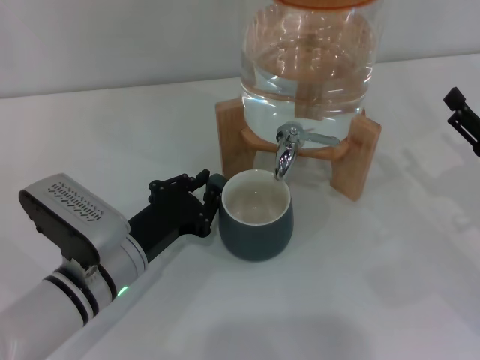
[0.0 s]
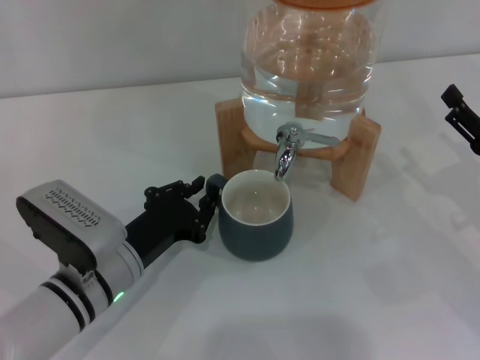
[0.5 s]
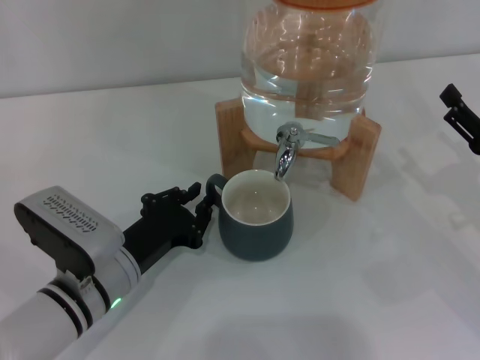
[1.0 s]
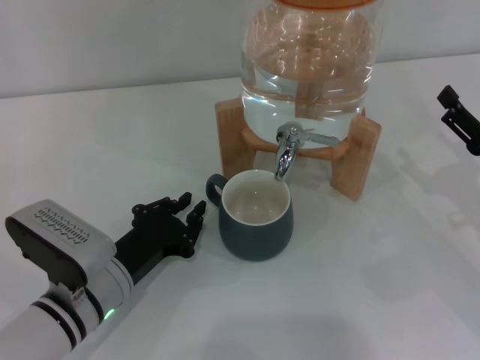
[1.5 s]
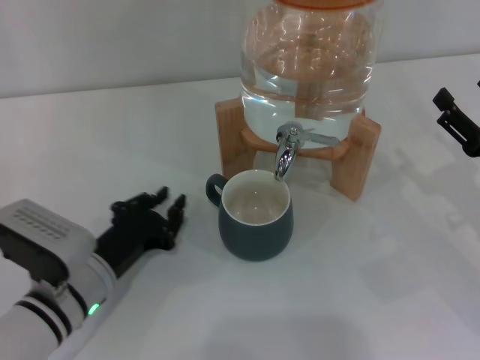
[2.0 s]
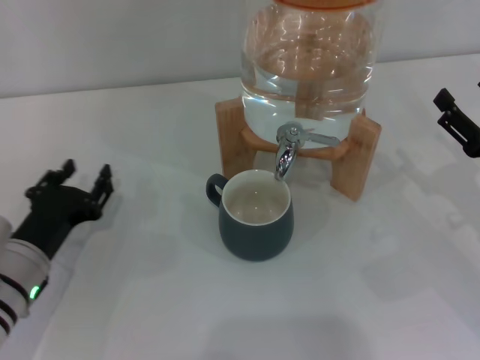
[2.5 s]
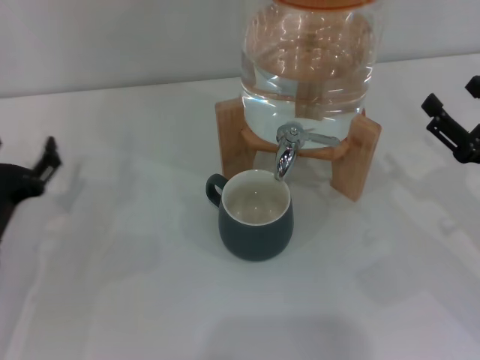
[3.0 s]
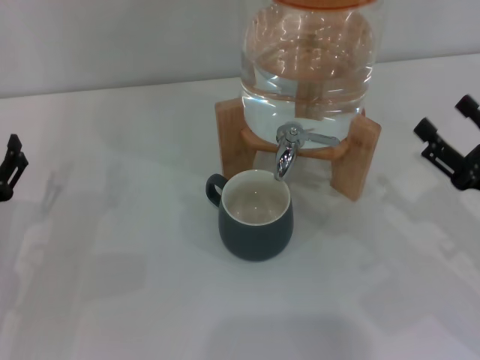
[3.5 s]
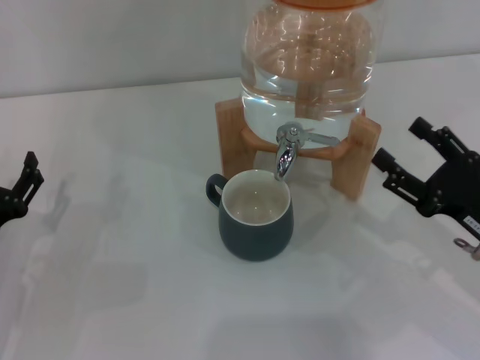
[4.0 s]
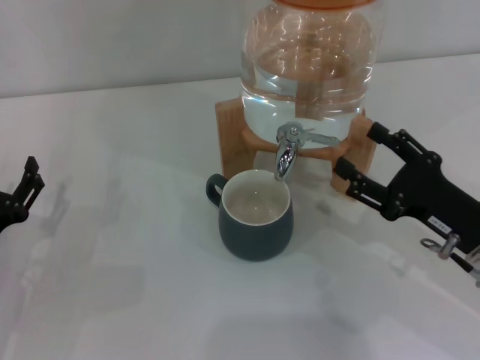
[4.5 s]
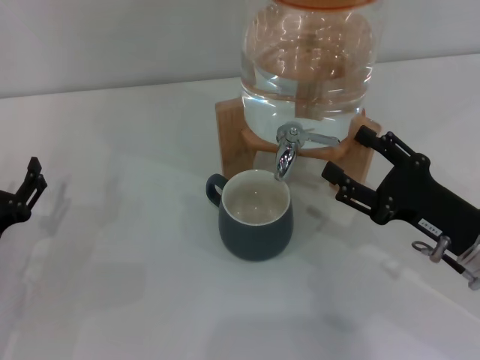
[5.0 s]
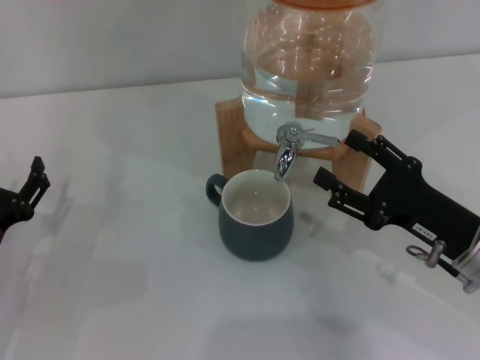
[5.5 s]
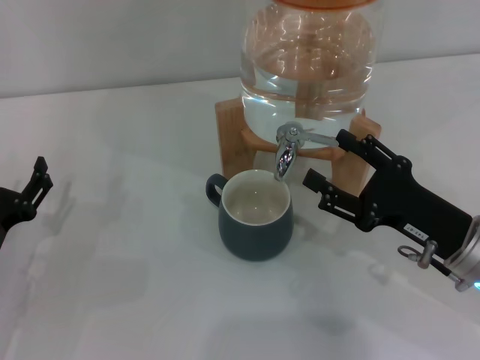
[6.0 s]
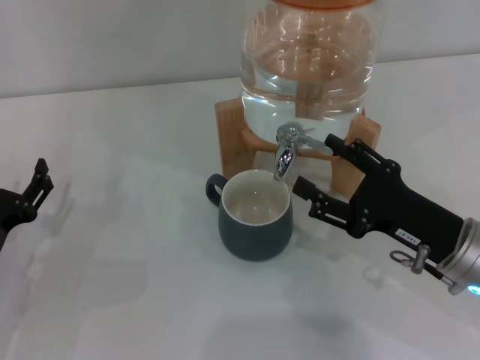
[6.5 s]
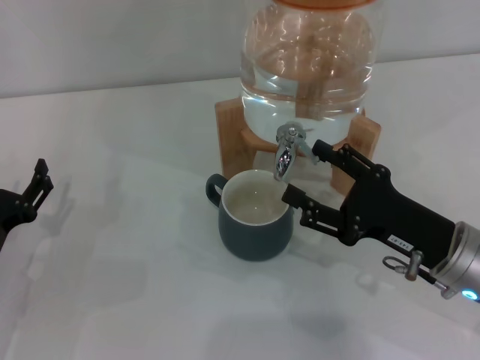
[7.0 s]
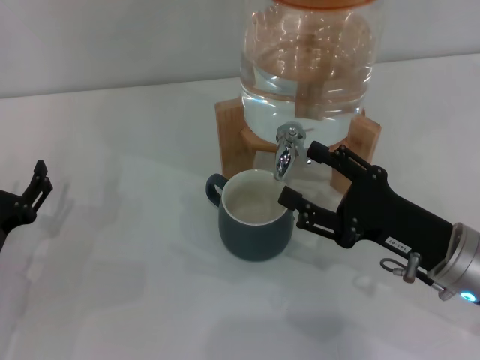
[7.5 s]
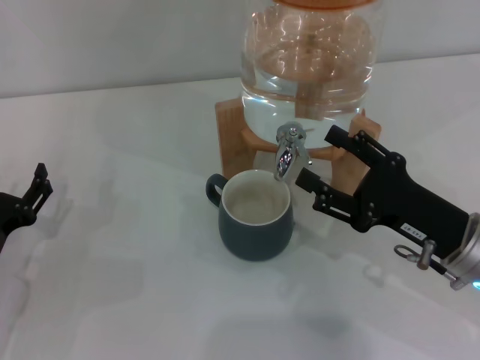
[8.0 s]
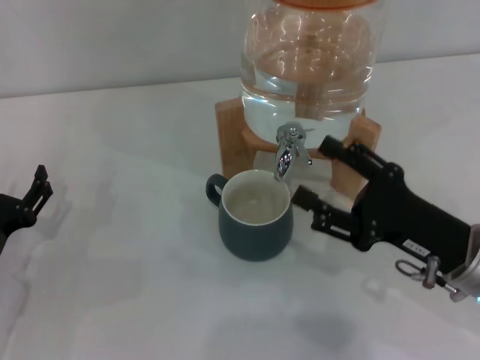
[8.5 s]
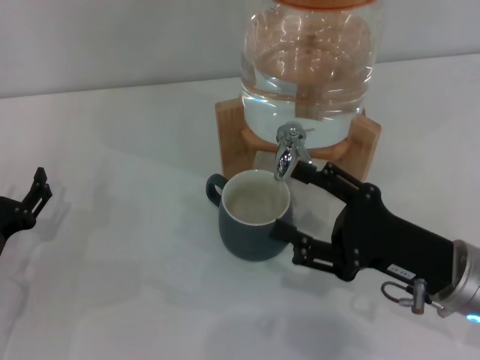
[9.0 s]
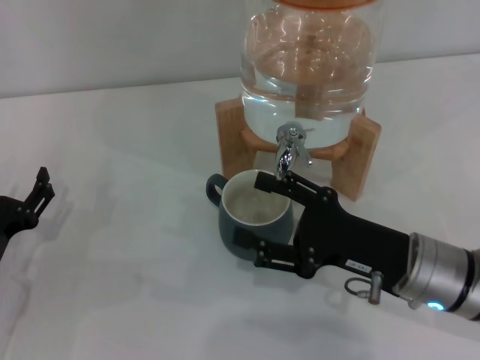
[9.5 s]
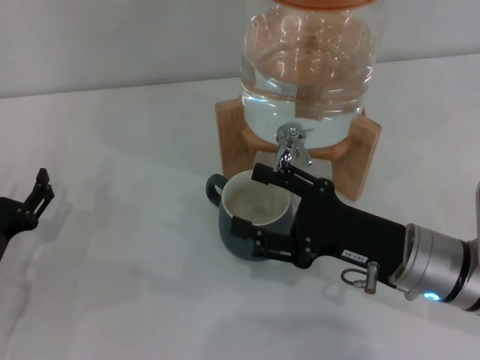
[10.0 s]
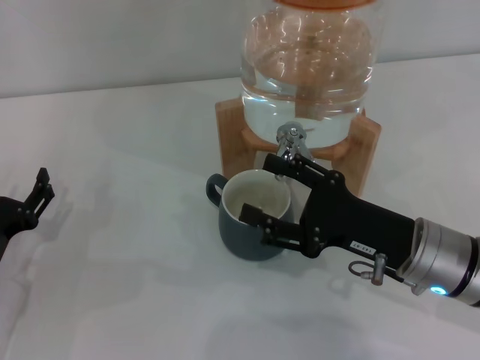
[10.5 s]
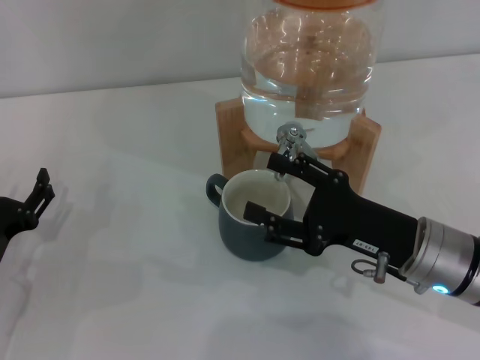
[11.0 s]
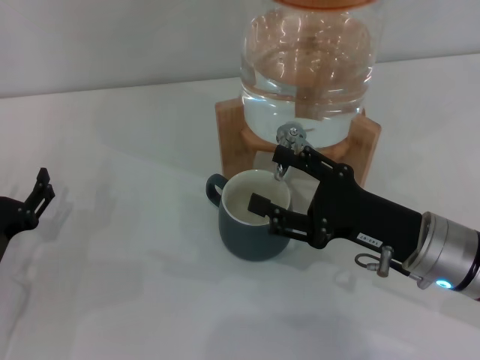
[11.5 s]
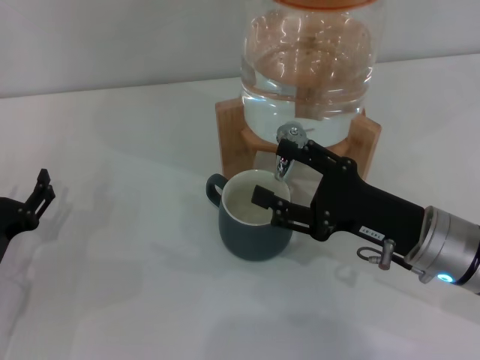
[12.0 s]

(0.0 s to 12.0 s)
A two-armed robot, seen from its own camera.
Task of the whole recording: the left gripper pick up the black cup and place it horizontally under the faucet, the right gripper turn on the faucet to fill the cup, and then turn off the faucet.
Step, 0.0 s - 2.0 s: Move the cup beneath the water dispenser nozzle with the left gripper.
Step, 2.5 s - 10.0 s: Open the dispenser valve and fill the cup with water with the right gripper.
0.0 s - 2.0 s: The grippers move only a little.
2.0 s - 4.0 s: The left gripper is displaced to the left by some 10 cm, and opens up.
4.0 s - 6.0 s: There are only small adjustments of the grippers.
6.0 s - 12.0 s: The grippers move only a little.

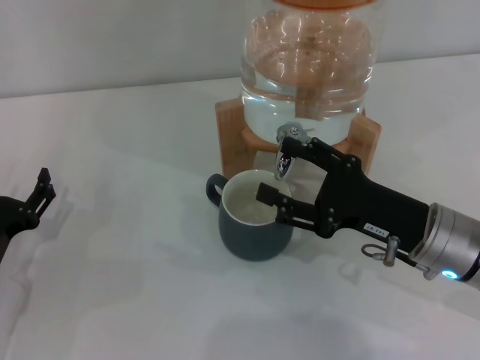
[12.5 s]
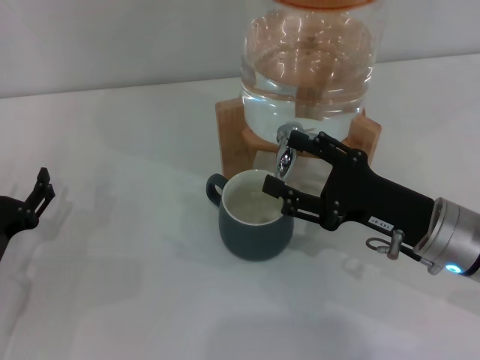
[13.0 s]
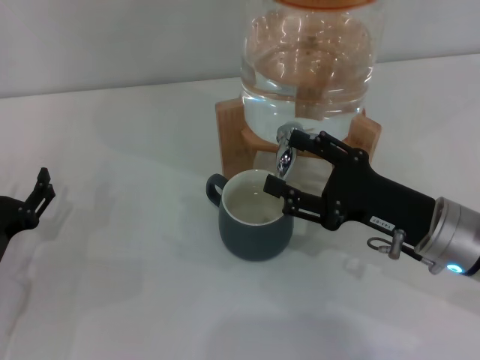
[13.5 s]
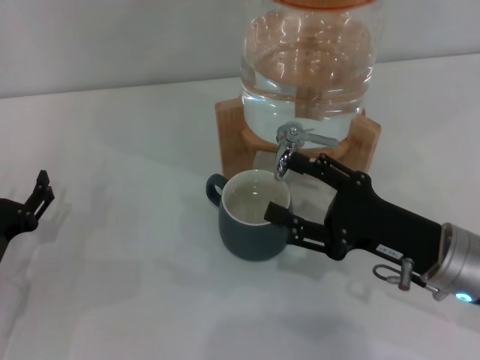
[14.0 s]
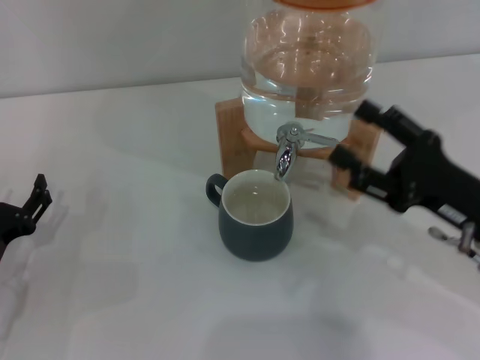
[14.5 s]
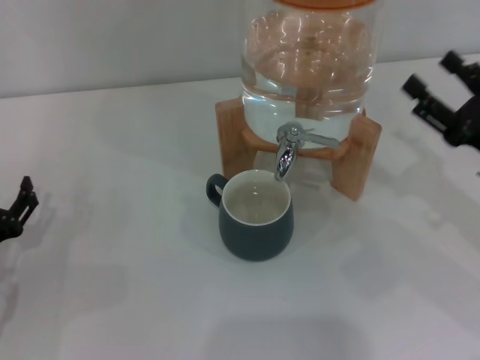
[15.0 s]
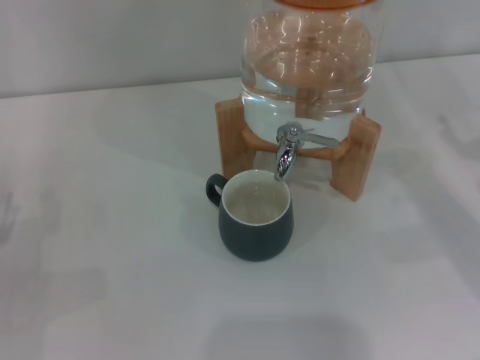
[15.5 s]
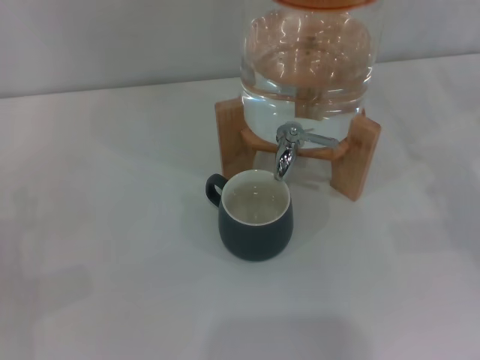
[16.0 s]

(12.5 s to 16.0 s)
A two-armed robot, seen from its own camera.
Task of the whole recording: the left gripper pick up the black cup and place it horizontally under the faucet, the right gripper turn on the faucet to fill the cup, and then turn off the faucet.
Step, 12.5 s - 14.5 s: Close the dispenser valve with the right gripper.
12.5 s - 14.5 s: The right gripper changes place by some 5 cm.
14.5 s - 16.0 s: The right gripper travels to the right by approximately 15 cm.

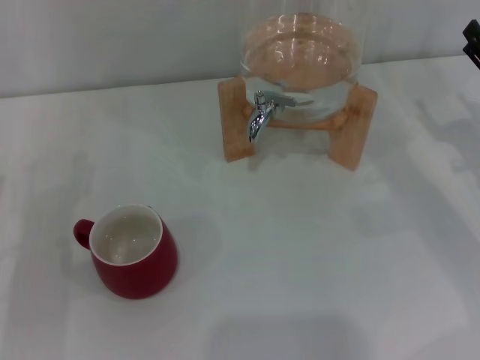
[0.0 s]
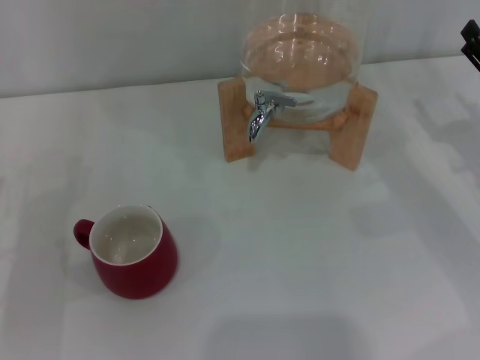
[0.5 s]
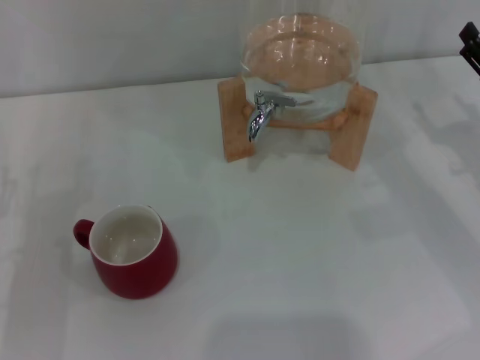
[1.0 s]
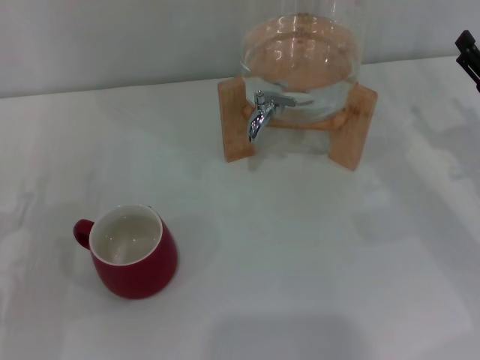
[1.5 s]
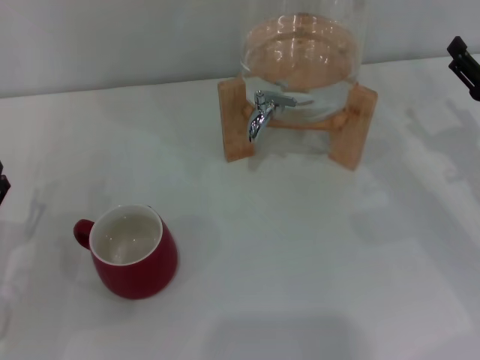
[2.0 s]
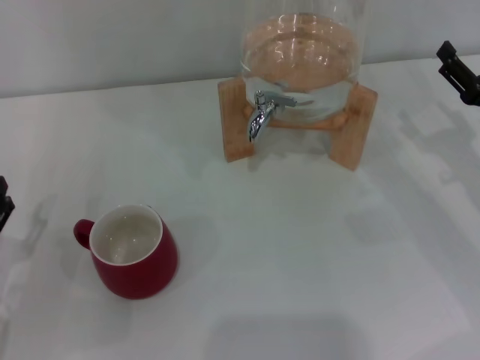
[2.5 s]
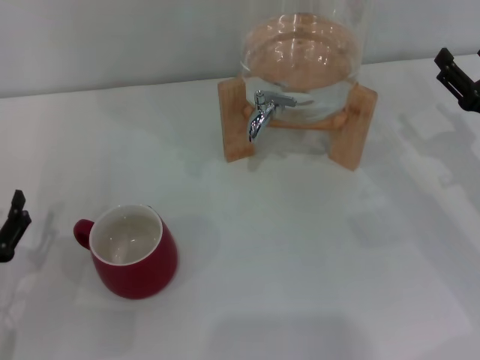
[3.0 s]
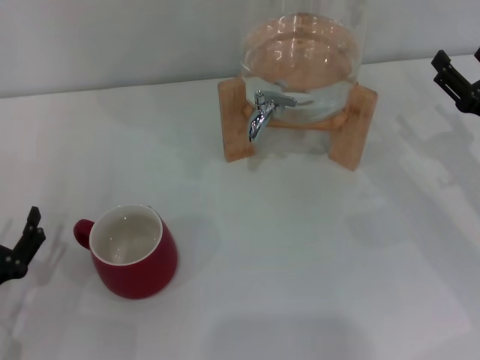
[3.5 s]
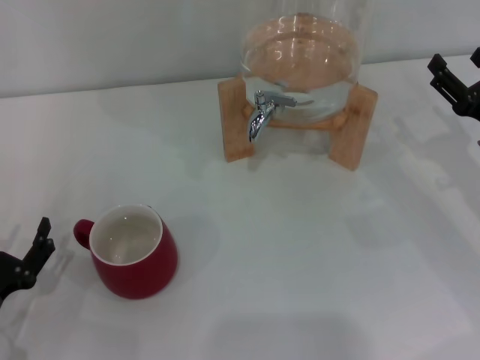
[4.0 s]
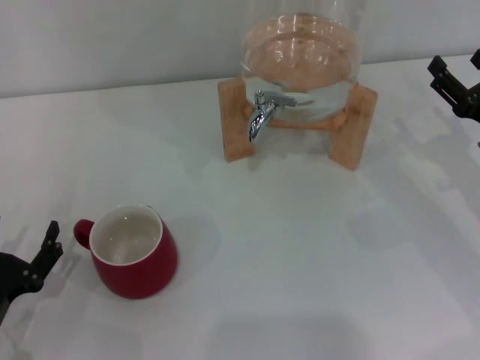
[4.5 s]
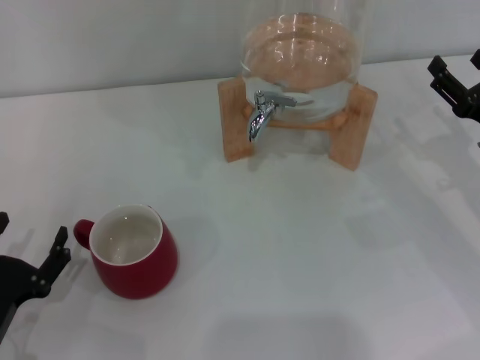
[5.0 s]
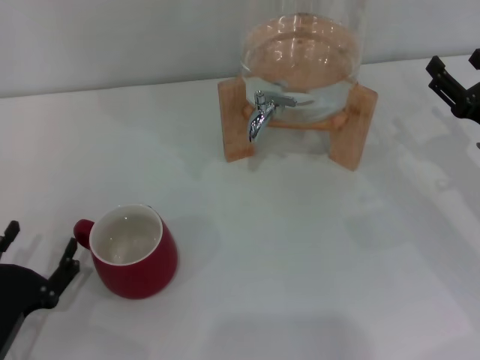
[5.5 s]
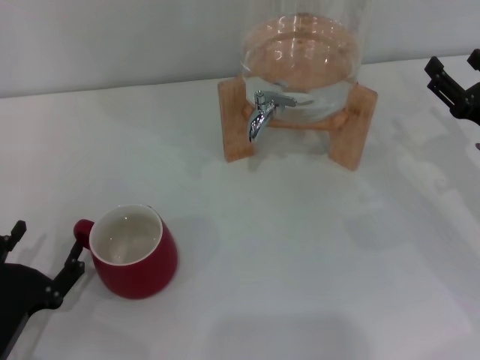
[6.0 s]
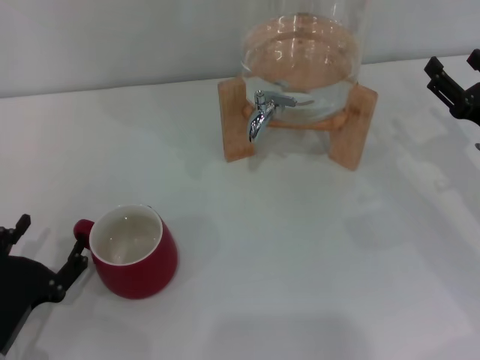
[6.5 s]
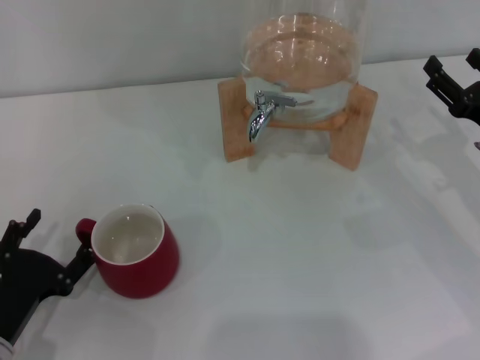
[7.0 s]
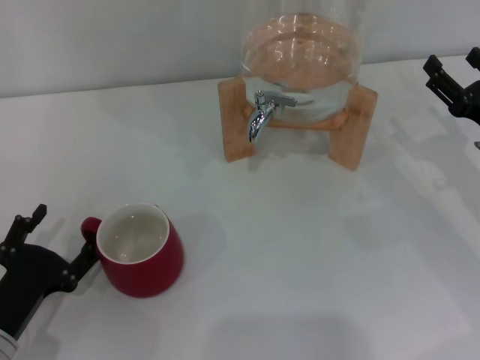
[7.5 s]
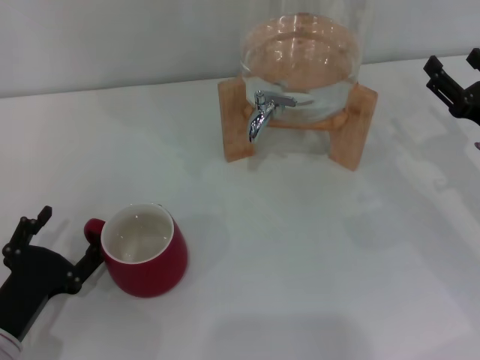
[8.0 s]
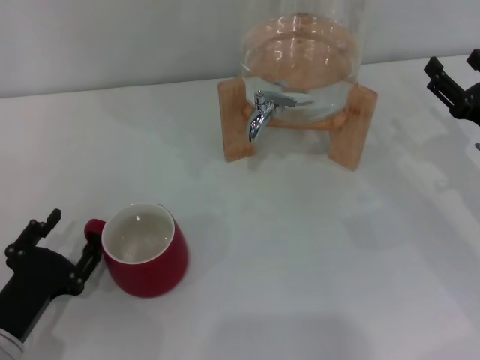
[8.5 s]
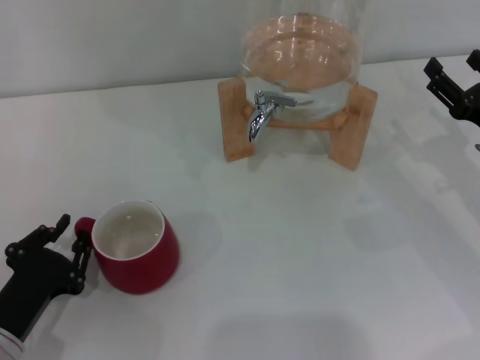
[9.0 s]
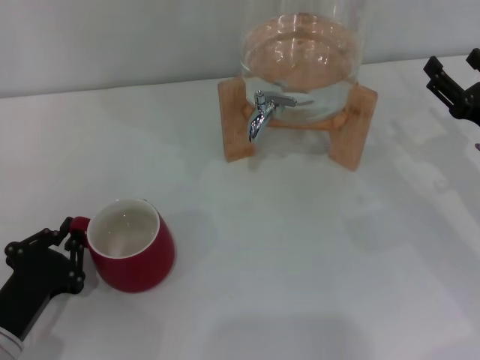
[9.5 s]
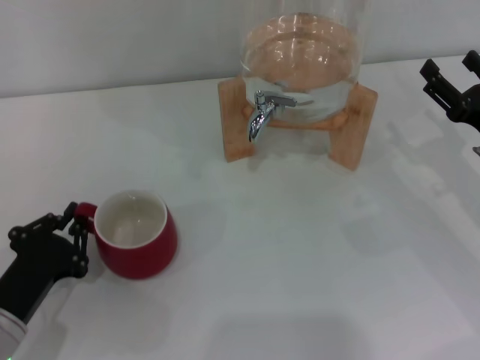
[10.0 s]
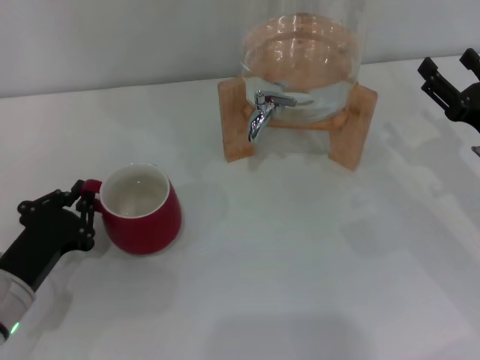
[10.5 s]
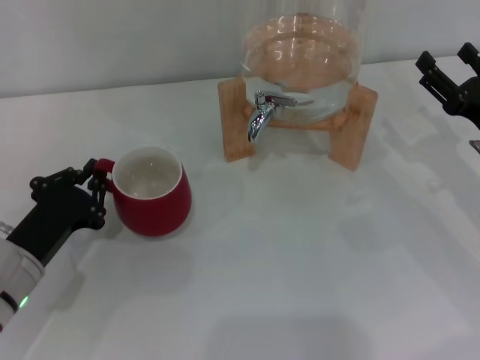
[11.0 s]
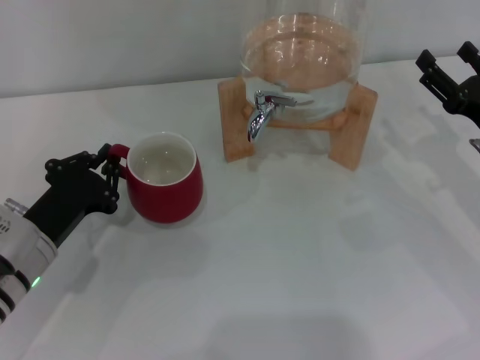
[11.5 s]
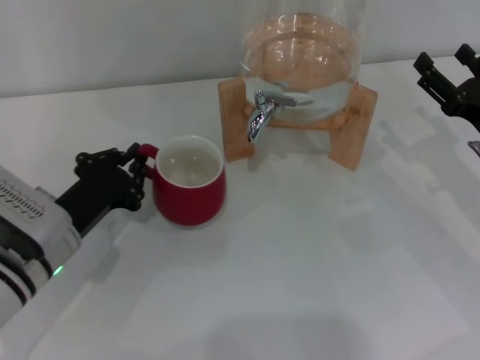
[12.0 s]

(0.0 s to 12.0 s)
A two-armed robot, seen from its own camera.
Task of the whole recording: the left gripper pick up the red cup and place it horizontally under the faucet, the right gripper turn on the faucet to fill the cup, and then turn off the faucet.
0.0 s - 2.0 s: The grippers make only small movements.
2.0 s - 4.0 s: The left gripper moves some 5 cm.
4.0 s - 8.0 s: There are only small adjustments of the grippers.
8.0 s - 10.0 s: The left gripper closes its fingers.
10.0 s - 12.0 s: The left gripper shifts some 10 cm forward.
